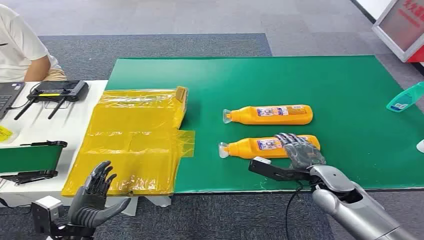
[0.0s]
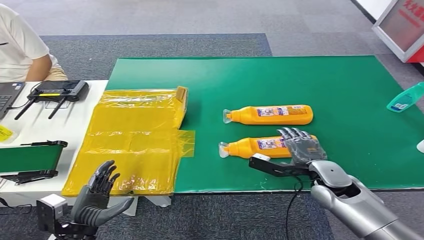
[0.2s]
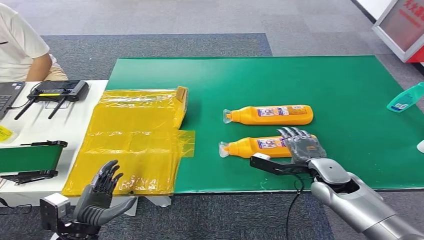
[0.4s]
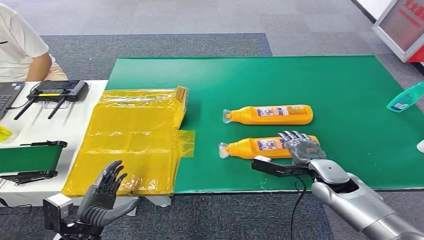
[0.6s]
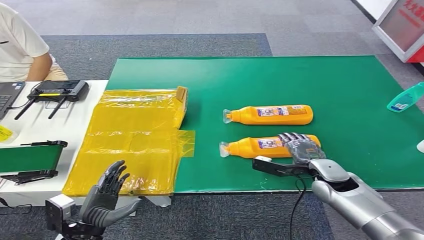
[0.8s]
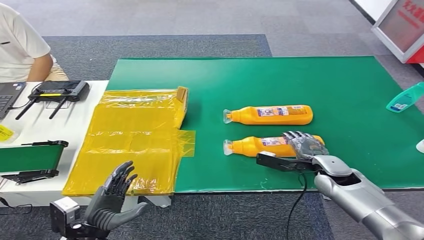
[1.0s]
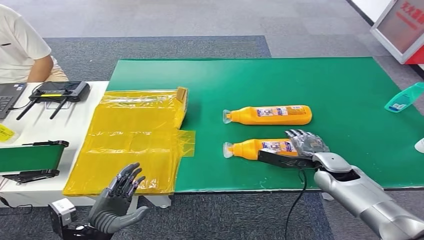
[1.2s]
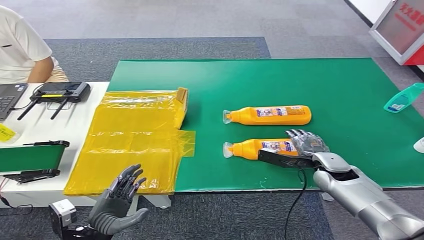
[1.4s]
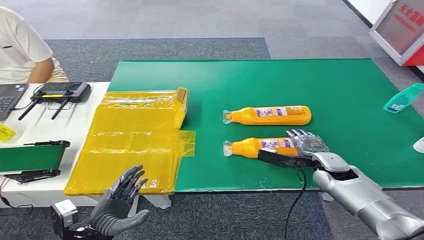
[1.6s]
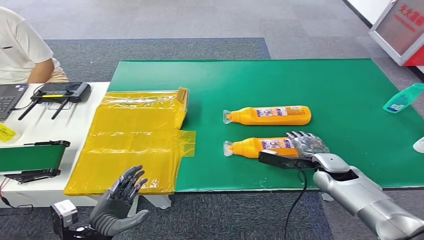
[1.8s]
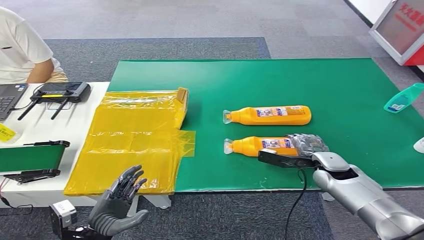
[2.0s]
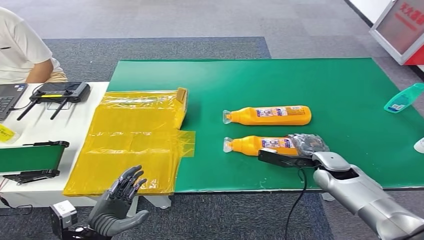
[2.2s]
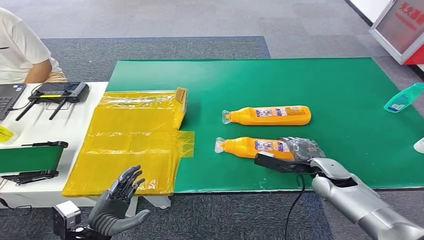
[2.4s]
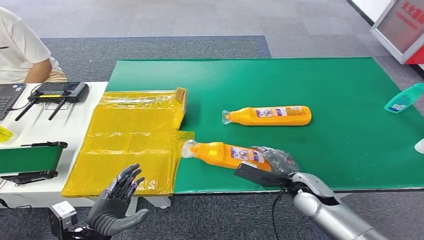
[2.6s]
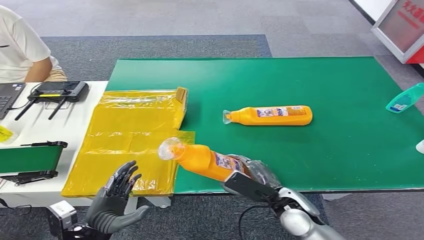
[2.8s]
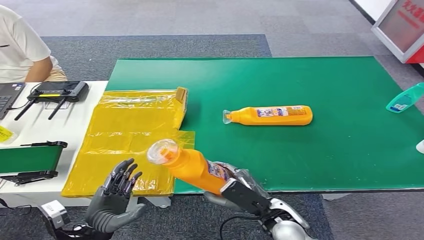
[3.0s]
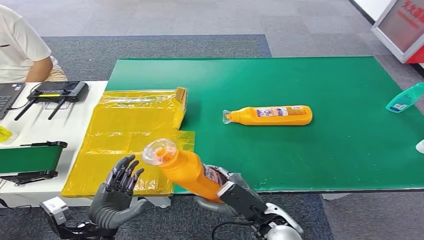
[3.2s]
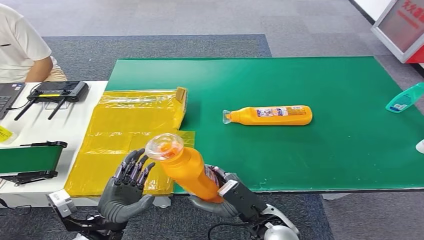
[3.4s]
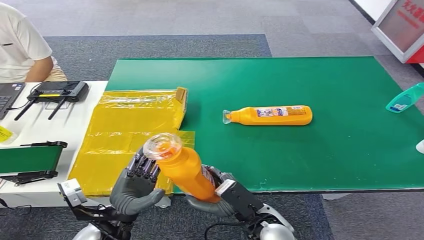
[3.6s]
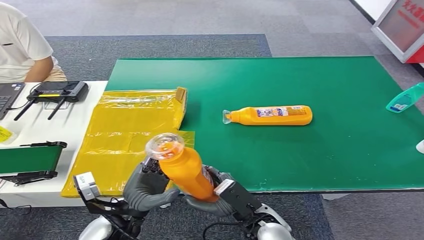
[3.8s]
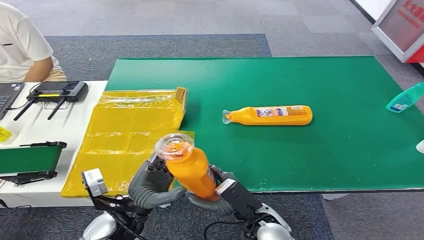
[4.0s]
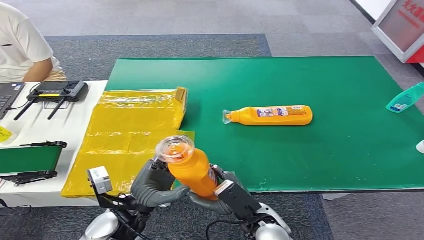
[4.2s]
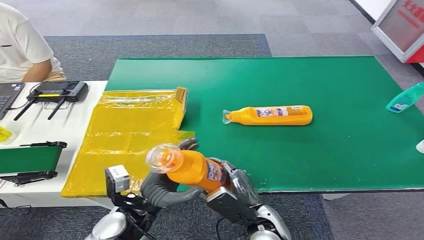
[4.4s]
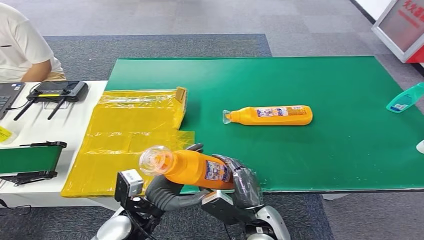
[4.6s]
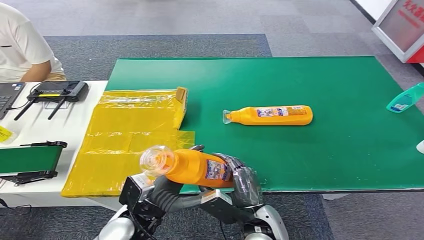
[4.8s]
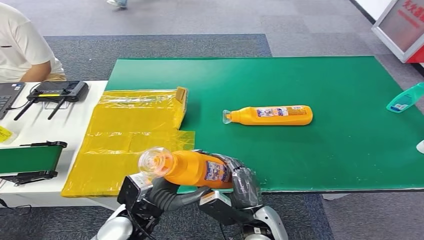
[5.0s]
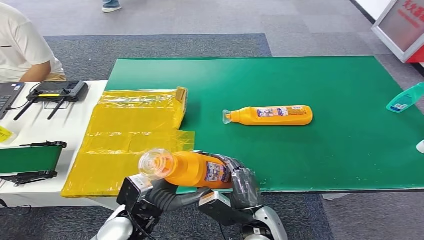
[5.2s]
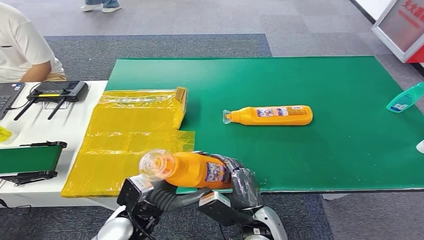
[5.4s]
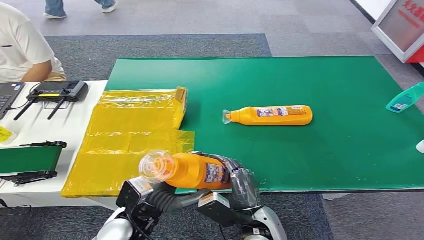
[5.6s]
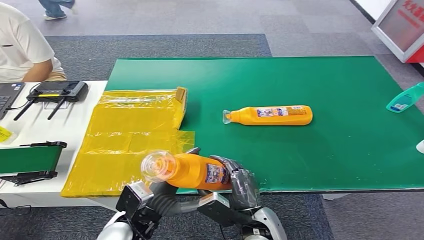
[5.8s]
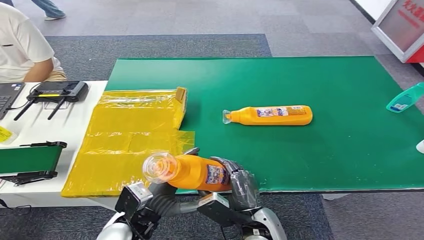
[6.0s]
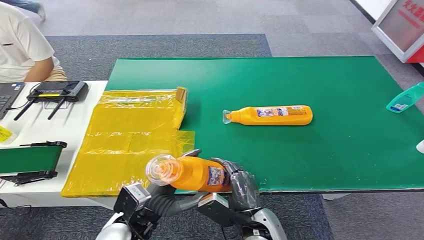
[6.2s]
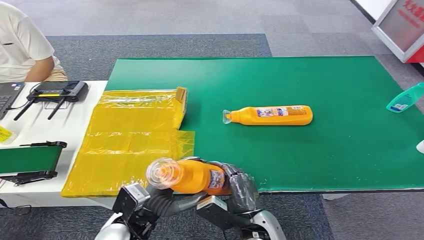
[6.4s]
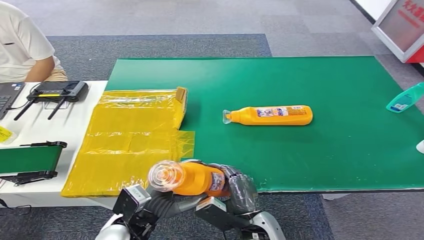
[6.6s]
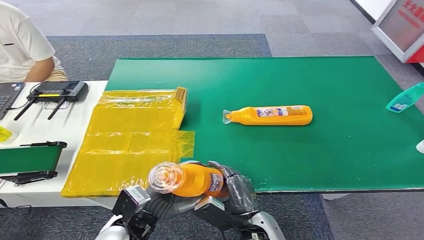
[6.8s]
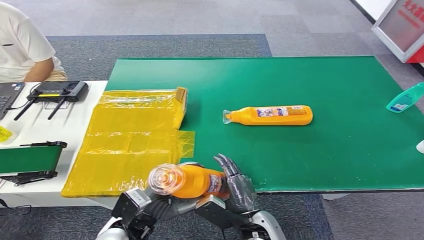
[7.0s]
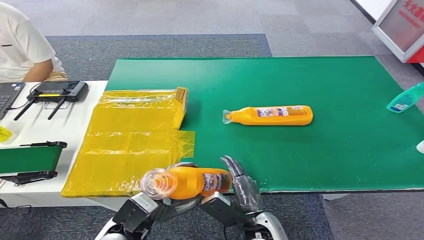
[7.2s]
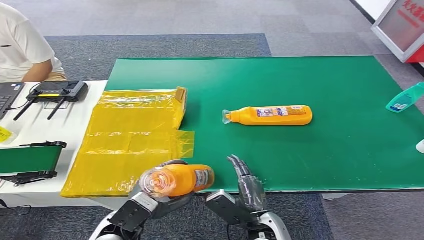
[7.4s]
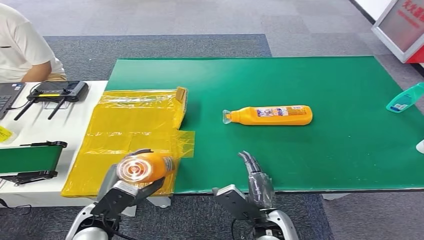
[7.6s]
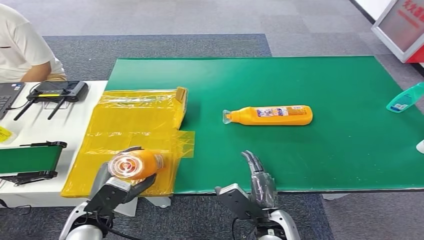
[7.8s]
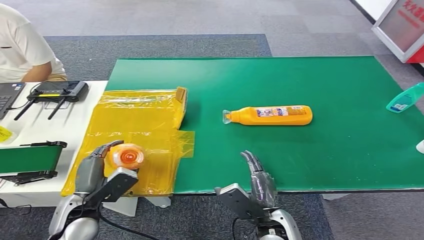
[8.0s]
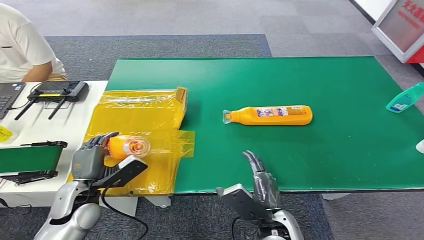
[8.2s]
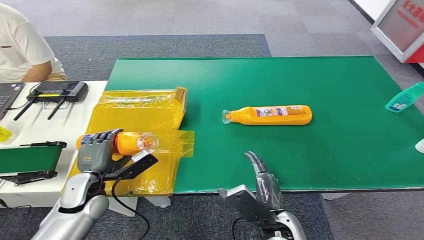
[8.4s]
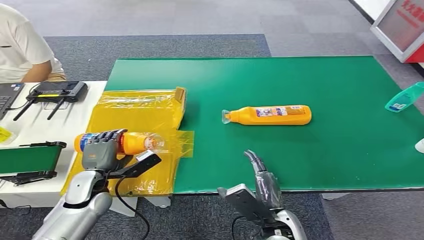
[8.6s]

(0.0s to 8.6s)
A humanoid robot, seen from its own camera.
Step, 0.0s - 3.2s: Pick up the bottle from the table.
Step, 3.4s - 8.4s: Turn the bottle to the front side.
1.4s - 2.8s: The right hand shifts some 15 cm to the left and backward.
2.8s - 4.4s: The left hand is displaced to the right and forward by roughly 10 cm, while the right hand travels to the left by about 5 cm.
4.4s - 5.8s: The hands make only small movements.
5.8s - 7.2s: The hands make only small movements.
7.2s - 8.6s: The left hand is displaced forward and to the left by some 15 cm.
